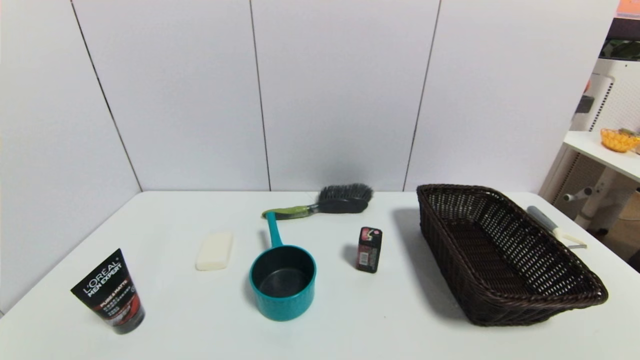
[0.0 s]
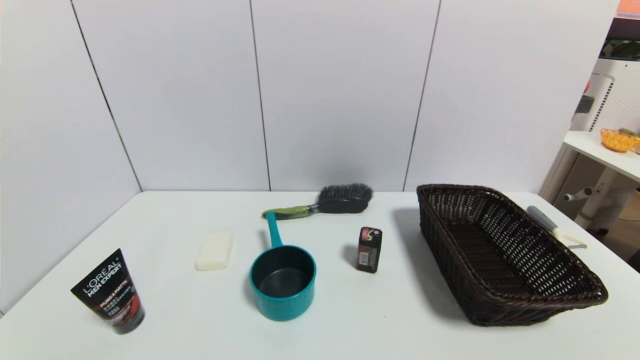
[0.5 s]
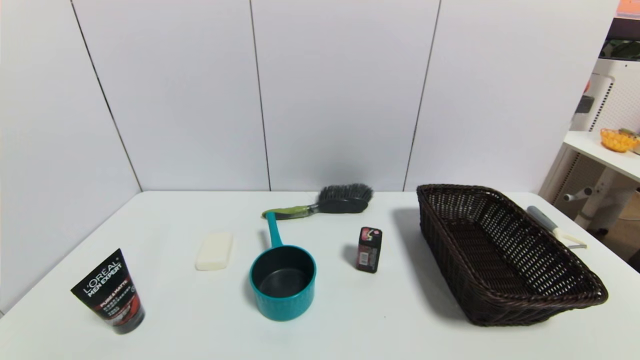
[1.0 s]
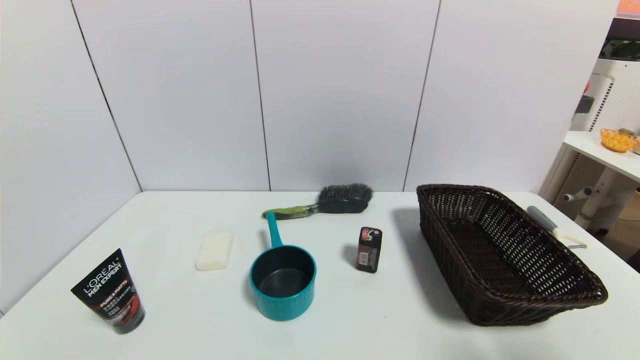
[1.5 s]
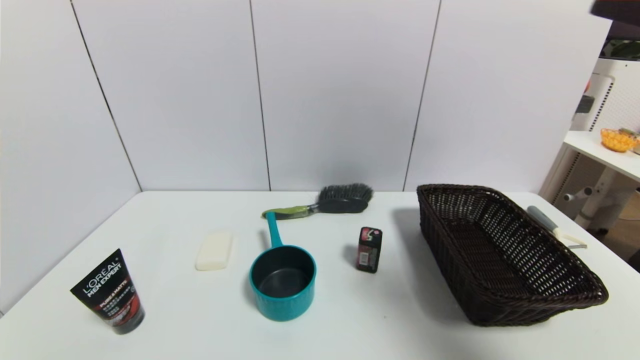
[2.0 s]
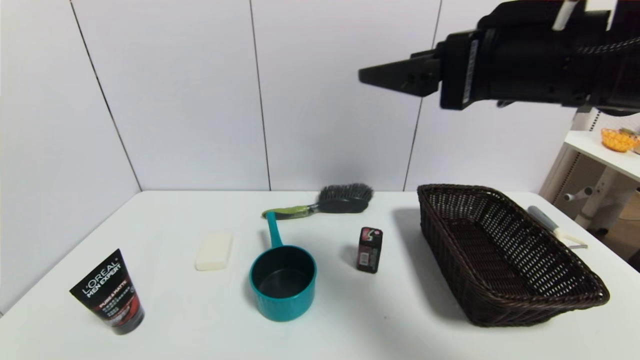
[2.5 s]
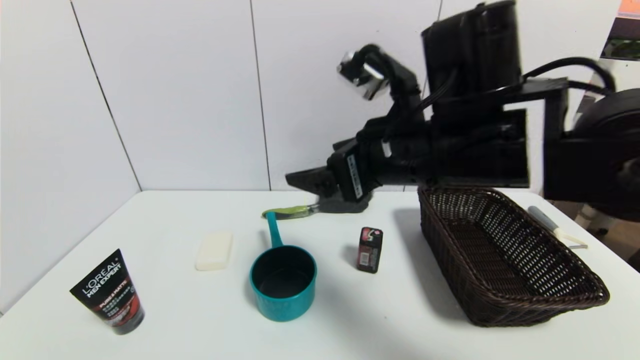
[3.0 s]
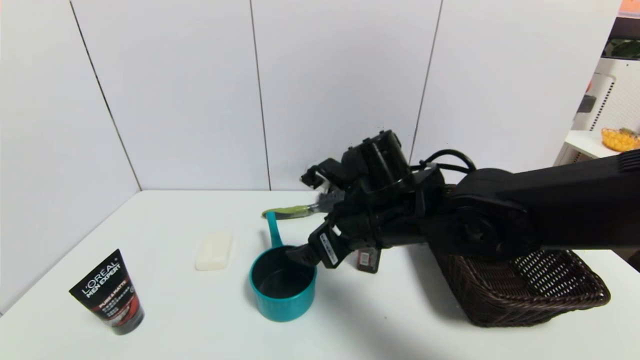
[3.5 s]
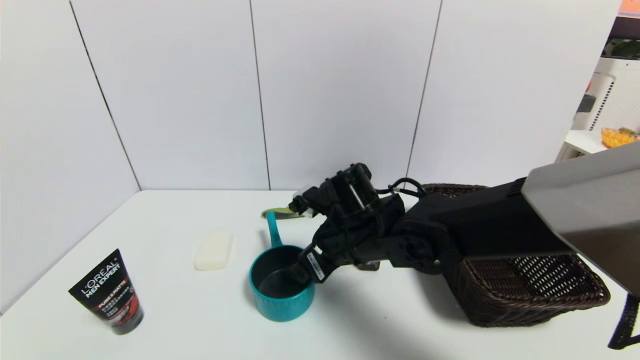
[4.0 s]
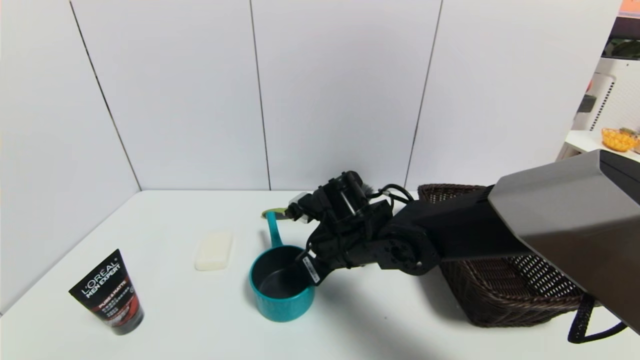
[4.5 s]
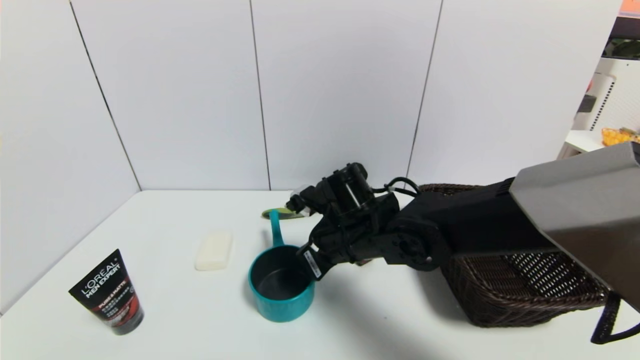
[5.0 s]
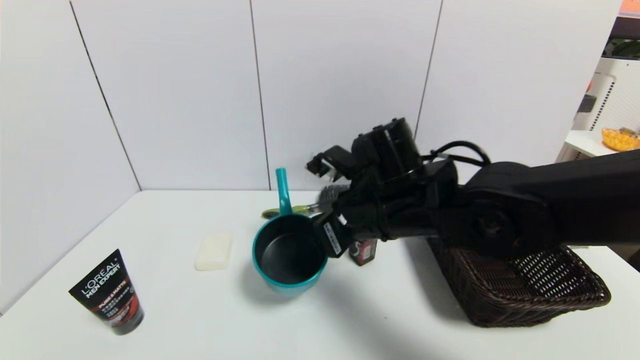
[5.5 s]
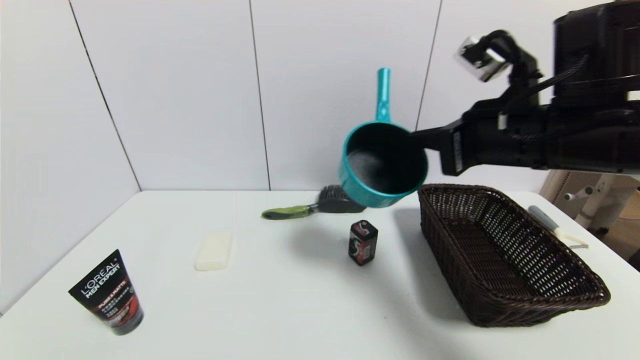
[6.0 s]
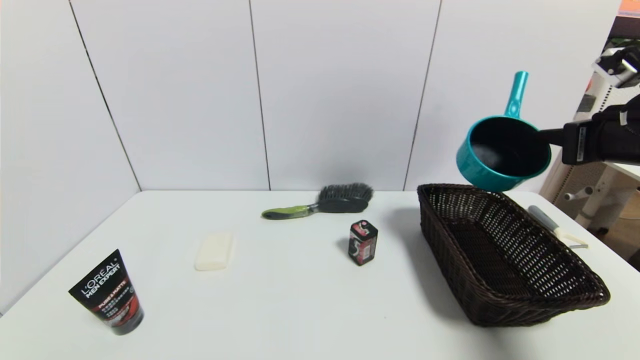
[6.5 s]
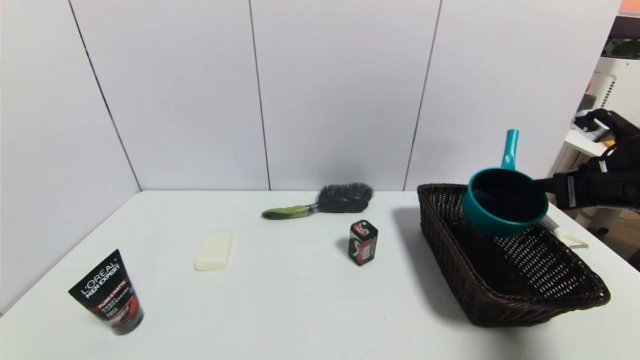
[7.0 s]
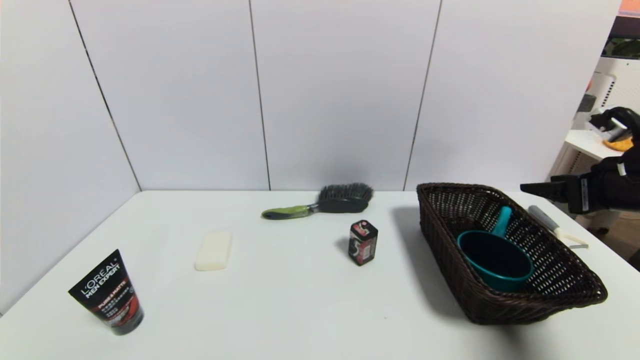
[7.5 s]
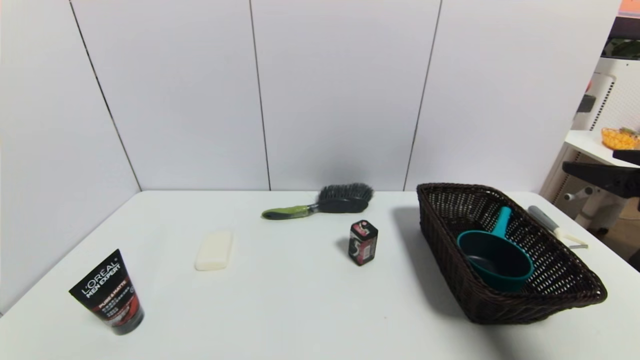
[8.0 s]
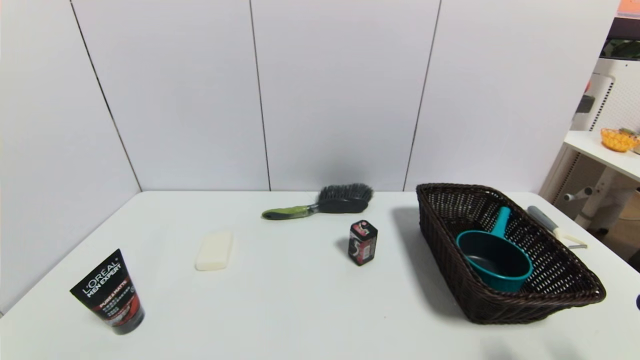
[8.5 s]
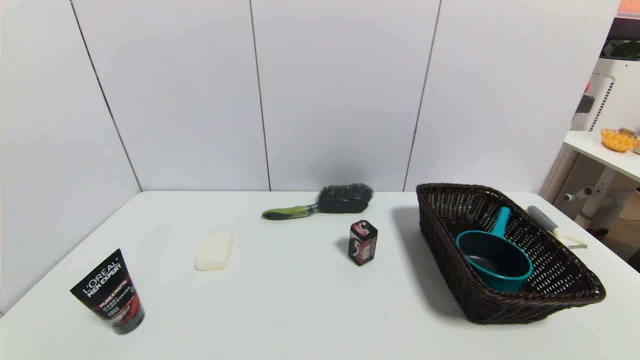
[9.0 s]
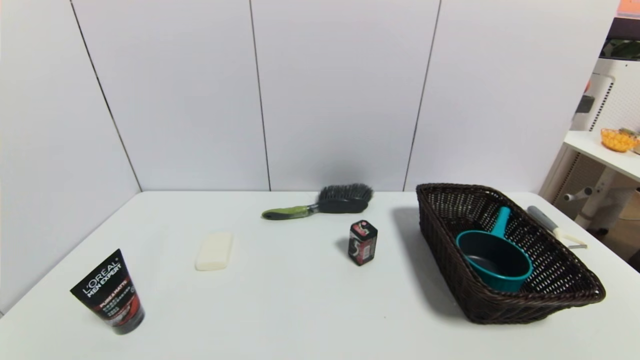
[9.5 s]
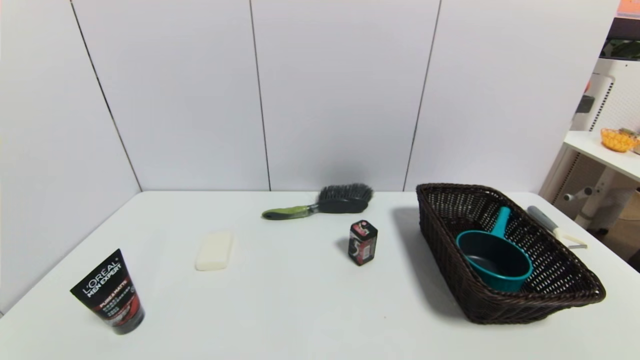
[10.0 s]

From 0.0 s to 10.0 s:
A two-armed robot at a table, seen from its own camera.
Task of the whole recording: use a gripper to pick the target object and place on the brown basket.
Step, from 0.0 s to 5.0 s: Grasp the blue pot with the right gripper.
Step, from 5.5 s to 7.0 s: Place the blue pot into the basket with the right gripper.
From 0.0 s to 2.0 s: The right gripper shifts roughly 35 cm upward and forward.
From 2.0 s to 4.0 s: The right gripper goes approximately 40 cm downward, to the left and forward.
From 4.0 s to 6.0 s: The right gripper moves upward and to the right, some 25 cm, and closes its fingers.
From 6.0 s to 8.0 s: The right gripper moves to the right and backward, about 15 cm, and opens.
From 8.0 s to 10.0 s: The right gripper travels downward and backward by about 25 cm.
